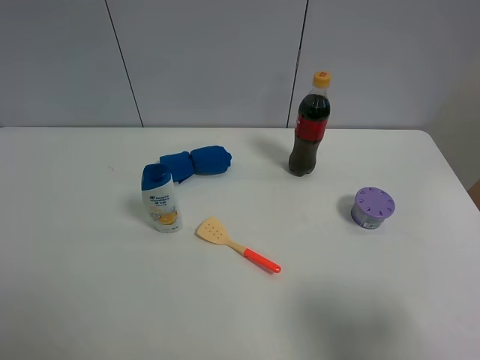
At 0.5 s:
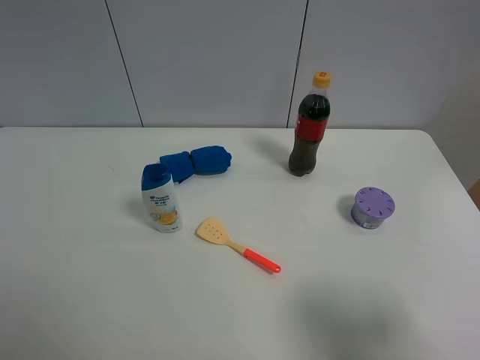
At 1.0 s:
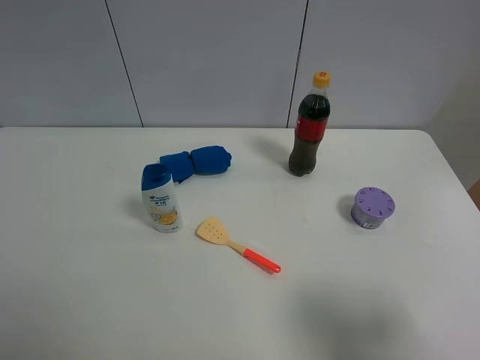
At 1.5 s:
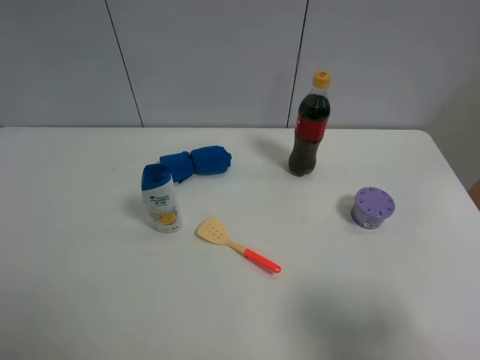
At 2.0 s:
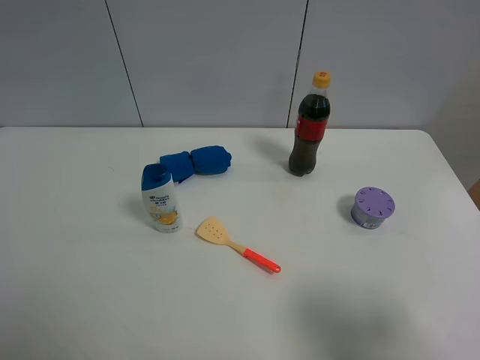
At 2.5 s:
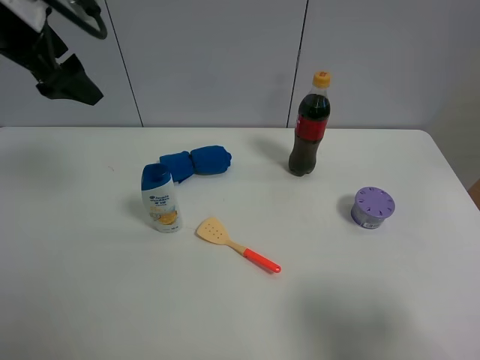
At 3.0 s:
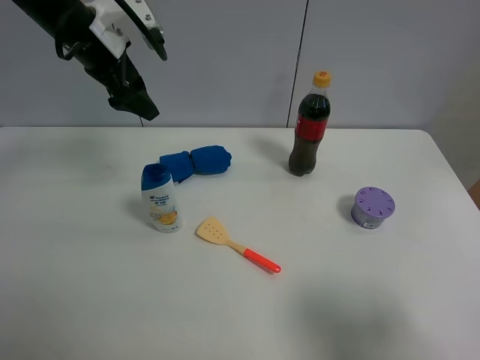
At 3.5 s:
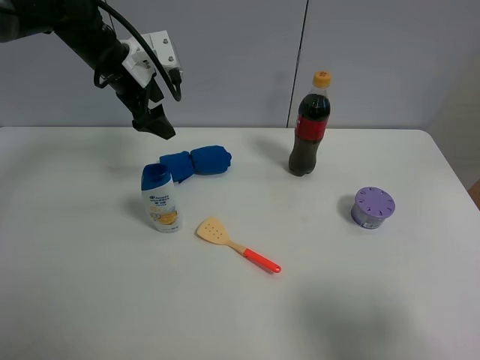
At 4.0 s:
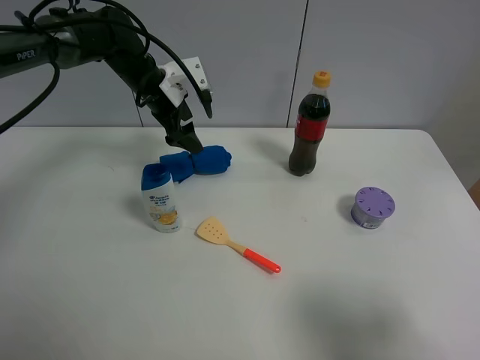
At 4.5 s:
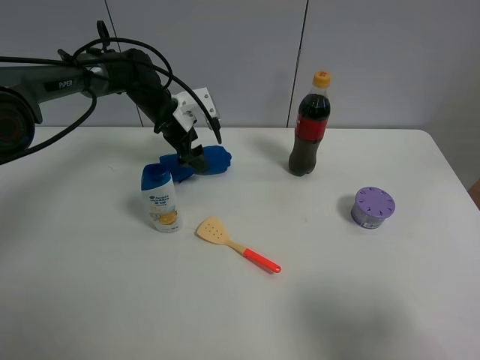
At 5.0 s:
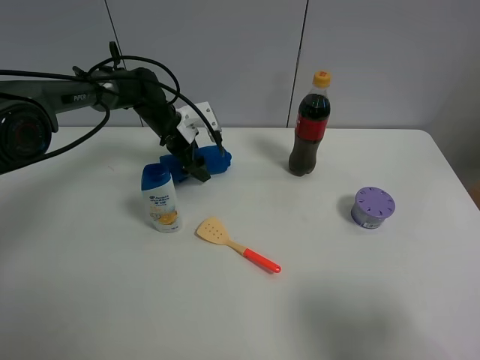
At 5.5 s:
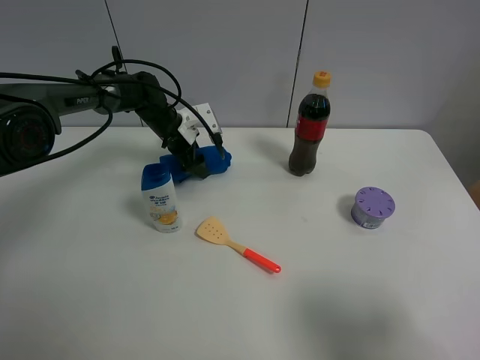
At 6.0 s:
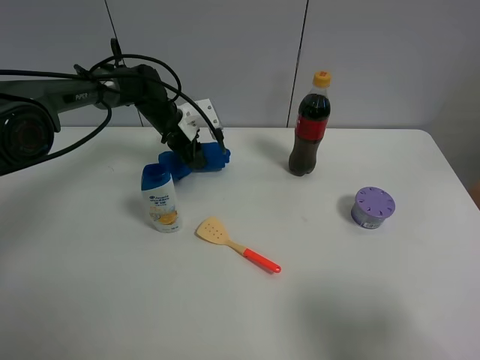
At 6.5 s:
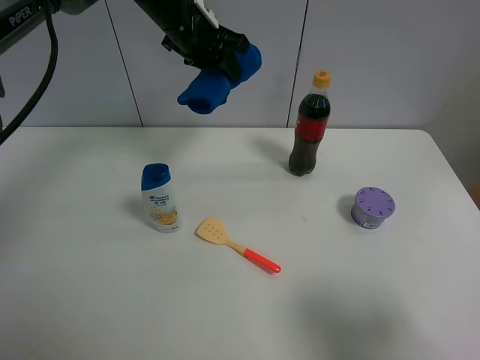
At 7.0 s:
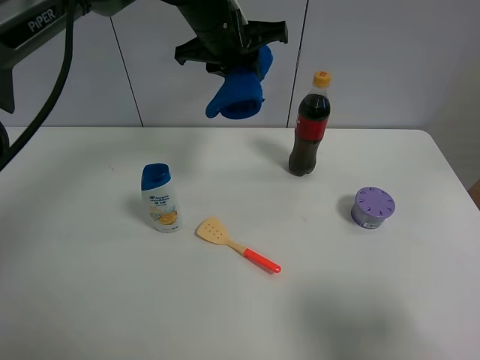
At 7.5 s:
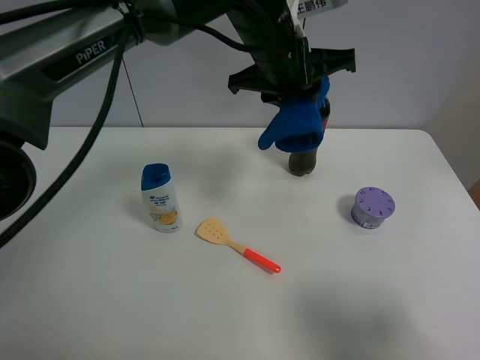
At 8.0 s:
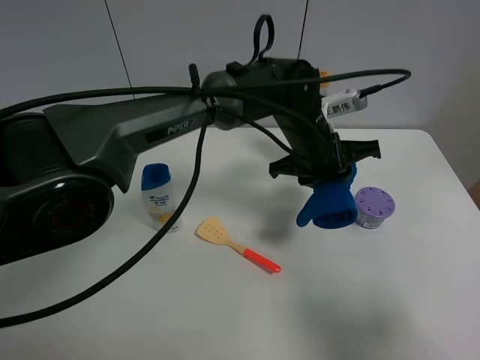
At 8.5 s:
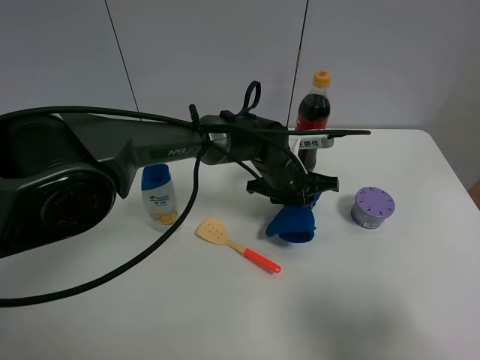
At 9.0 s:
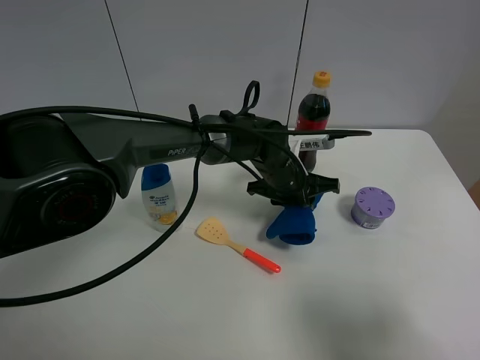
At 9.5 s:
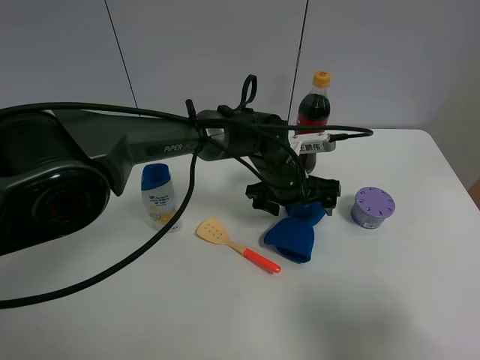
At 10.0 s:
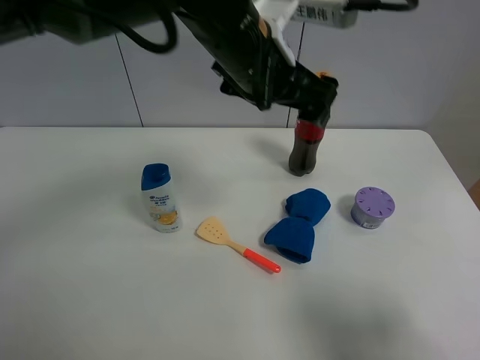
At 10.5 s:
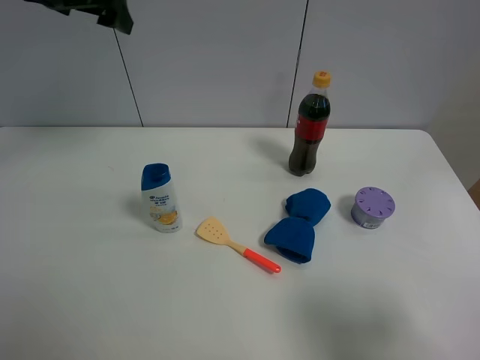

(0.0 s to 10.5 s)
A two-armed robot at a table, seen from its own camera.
Task of the whole recording: the gripper move the object.
Step, 0.0 s - 5.5 s: Grasp the blue towel with the left gripper.
Step, 6.0 s - 9.5 s: Place the blue towel on the table with the left gripper.
2.0 s - 4.0 s: The left gripper travels forward, downward and to the right by roughly 40 cm.
4.0 s - 6.5 s: The left gripper heads upward and to the right, covering roughly 15 cm, and closes up.
6.5 s - 8.5 s: The left gripper travels downward, to the right and backward by roughly 25 cm.
8.5 s - 10.5 s: The left gripper travels to the left and upward by about 40 cm, and opens.

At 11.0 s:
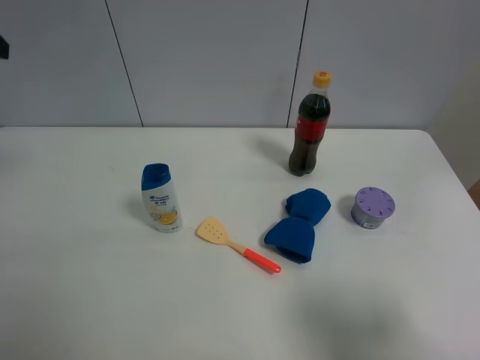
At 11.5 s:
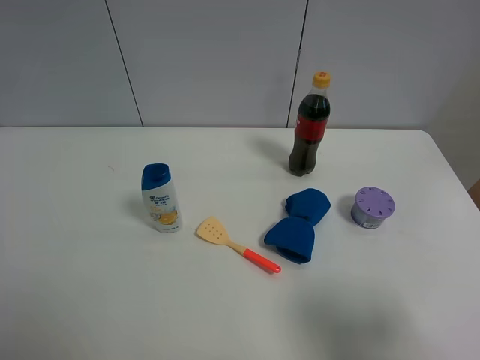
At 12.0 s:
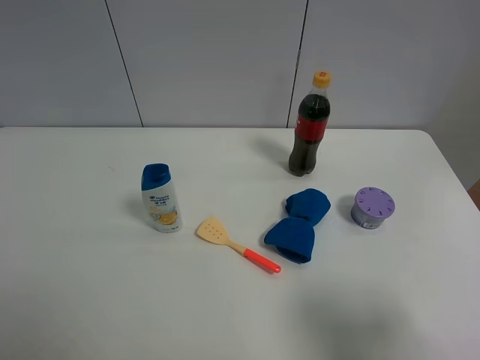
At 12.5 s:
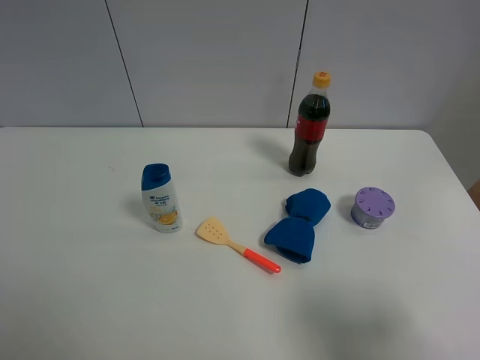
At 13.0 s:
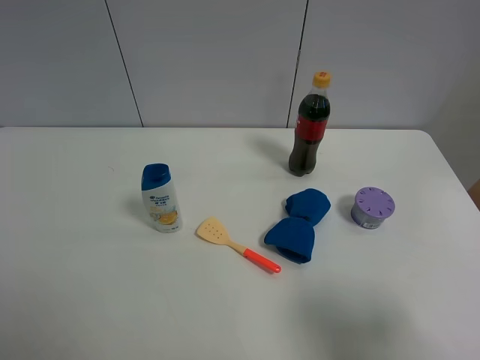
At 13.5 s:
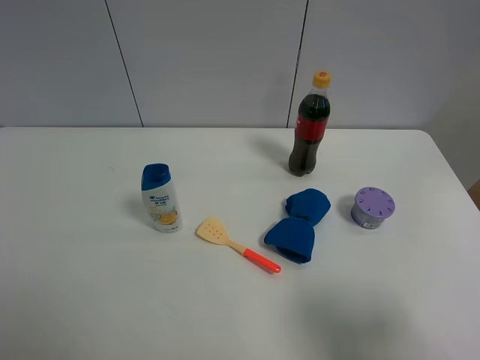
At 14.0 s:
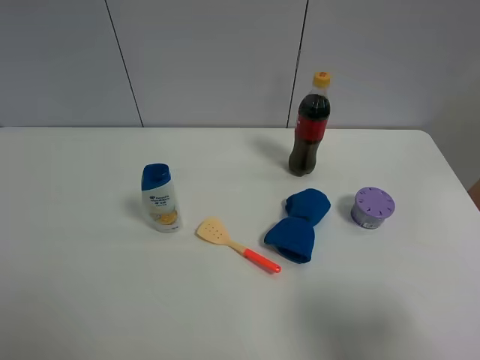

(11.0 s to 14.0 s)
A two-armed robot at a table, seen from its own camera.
Task of the whole recording: the gripper move the object.
12.5 s - 14.0 s: Neither gripper changes place.

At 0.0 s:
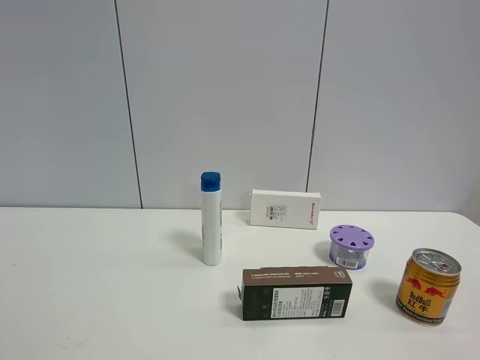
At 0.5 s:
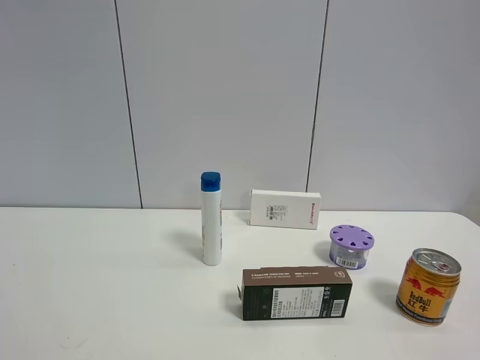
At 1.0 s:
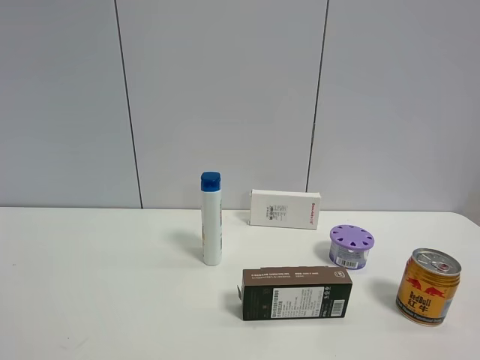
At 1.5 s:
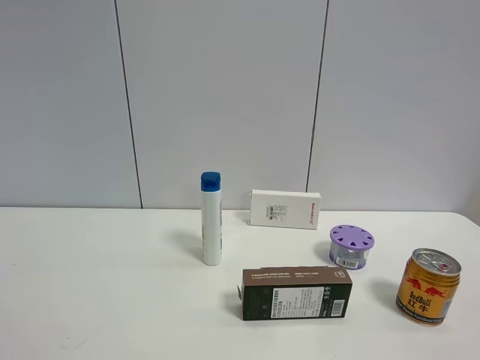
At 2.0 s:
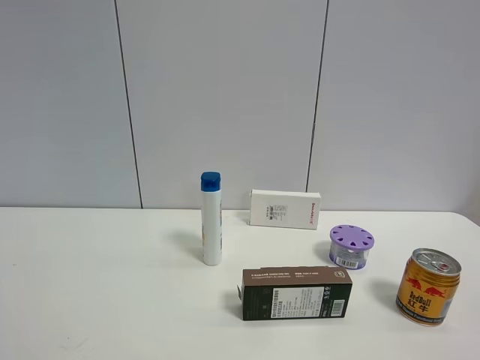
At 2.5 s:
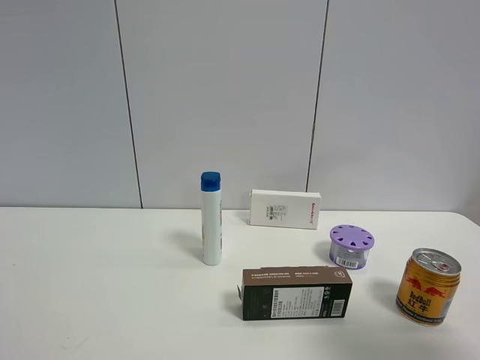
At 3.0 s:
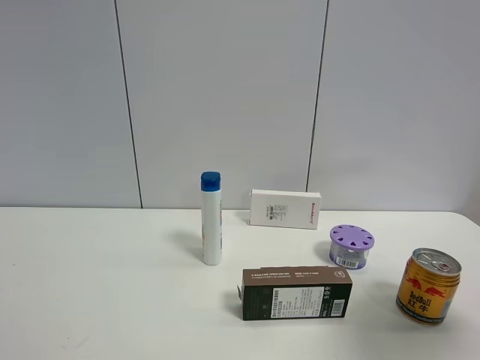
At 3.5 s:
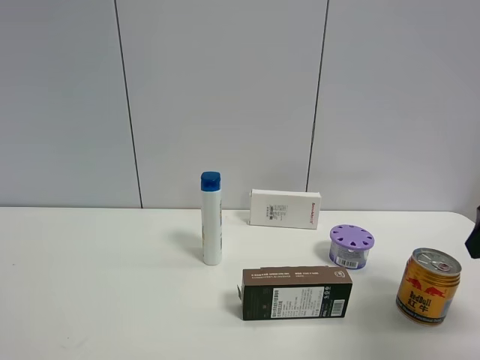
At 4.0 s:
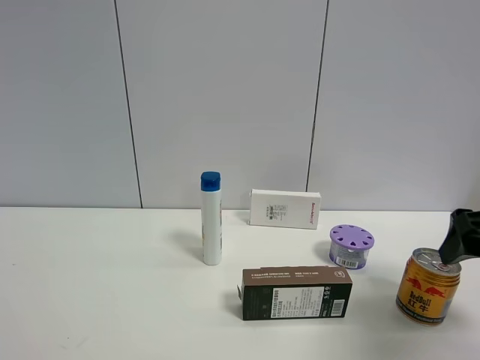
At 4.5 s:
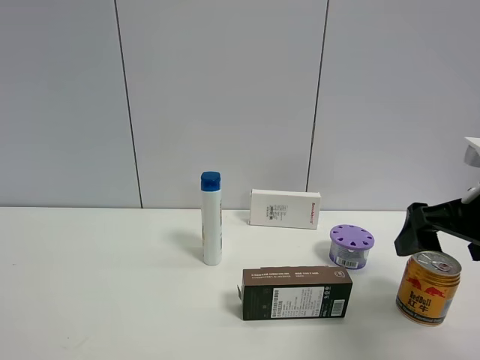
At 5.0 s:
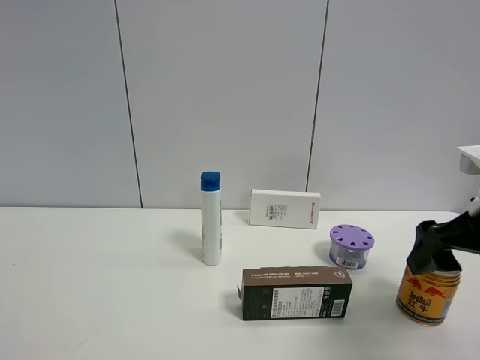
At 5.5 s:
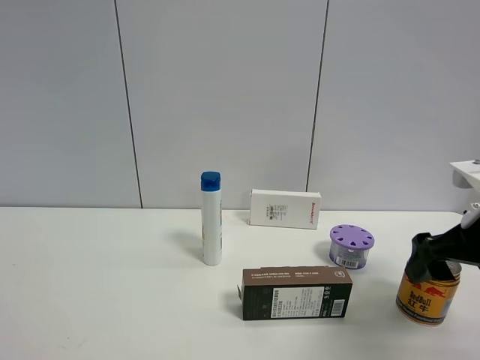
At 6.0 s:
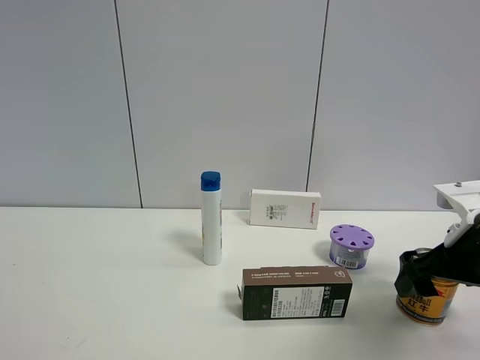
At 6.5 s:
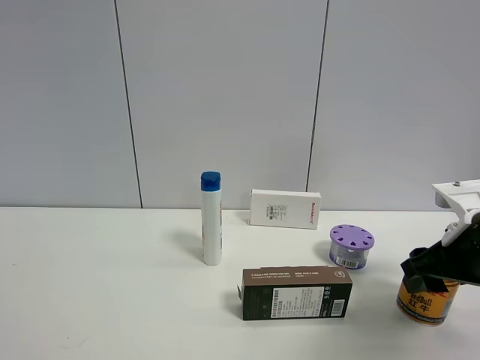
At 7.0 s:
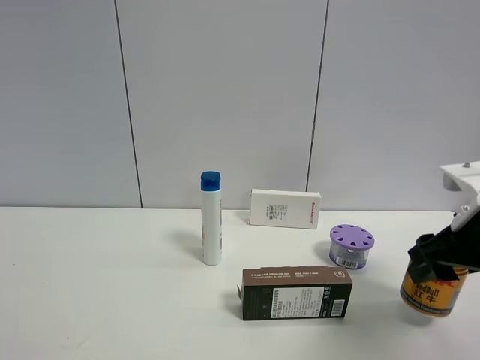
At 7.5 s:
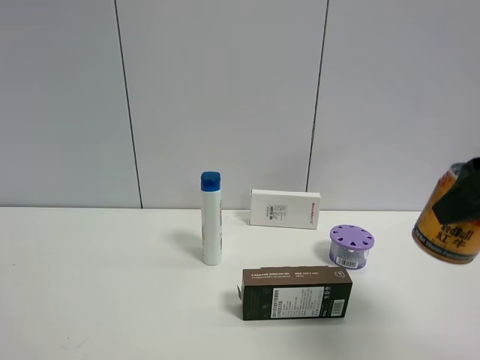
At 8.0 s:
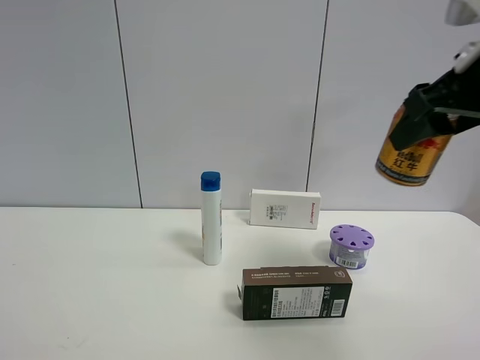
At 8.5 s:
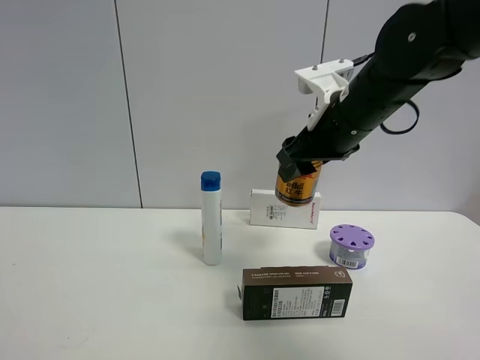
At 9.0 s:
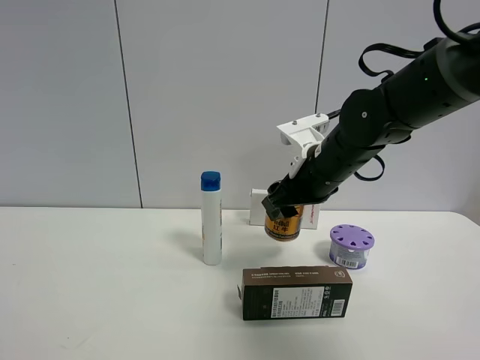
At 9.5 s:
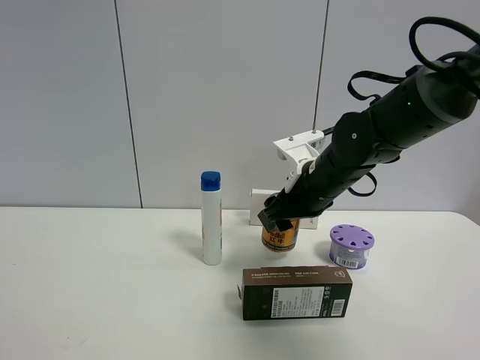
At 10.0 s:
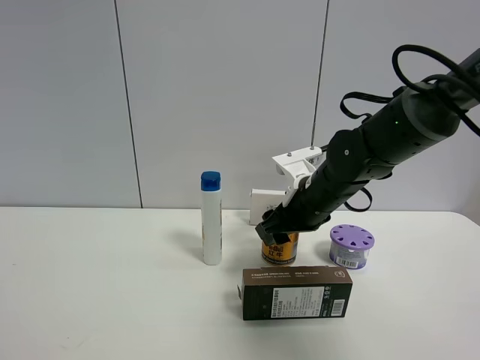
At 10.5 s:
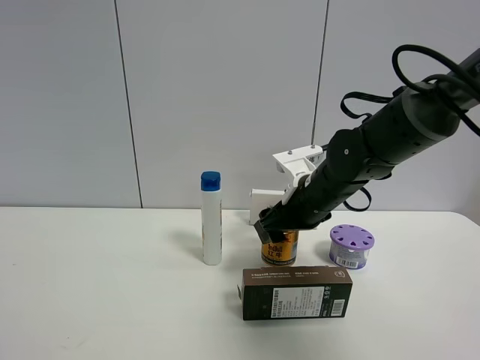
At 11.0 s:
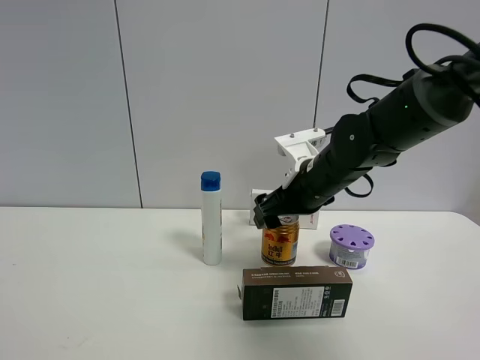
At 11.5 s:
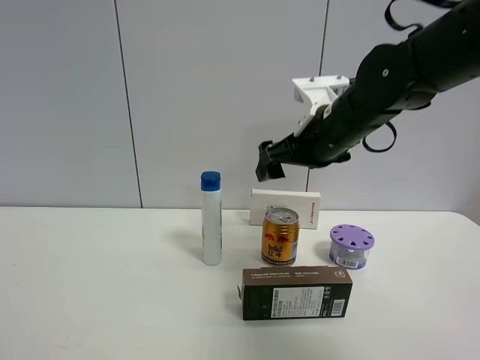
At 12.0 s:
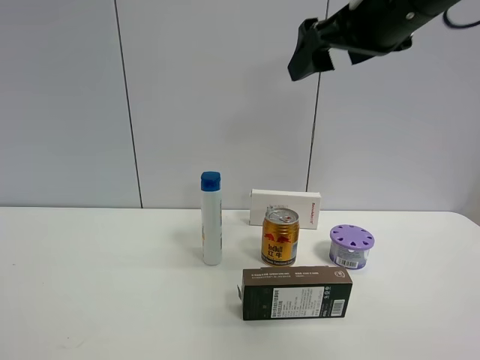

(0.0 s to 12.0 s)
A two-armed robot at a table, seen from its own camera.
Task of the whole recording: the gripper move the object.
Step, 0.0 s - 6.0 s: Grasp the red bull with the right gripper.
Step, 6.5 s - 11.0 s: Place the red bull on the table with the right gripper.
0.0 s - 2.0 s: Neither gripper changes place.
2.0 s - 4.0 s: The right gripper is displaced forward by approximately 25 cm.
4.0 s - 6.0 s: The right gripper shifts roughly 5 cm downward.
6.0 s - 8.0 s: The right gripper heads upward, covering some 20 cm, and closes.
8.0 s - 10.0 s: The right gripper goes roughly 25 cm downward, forward and to the left.
10.0 s - 12.0 s: The right gripper travels upward by approximately 25 cm, and opens up.
